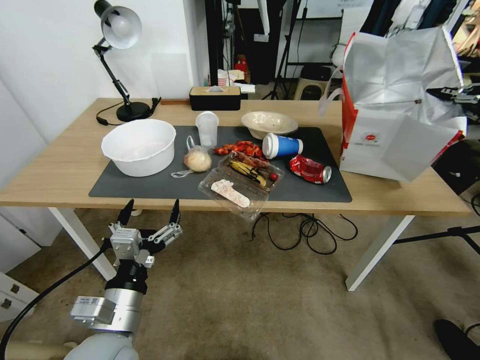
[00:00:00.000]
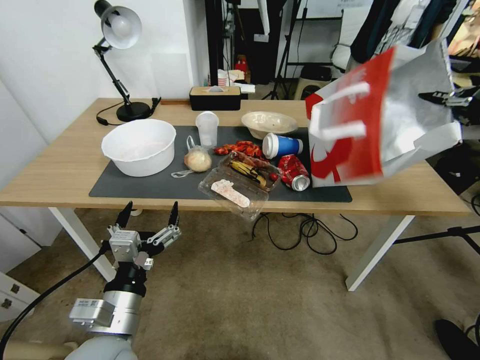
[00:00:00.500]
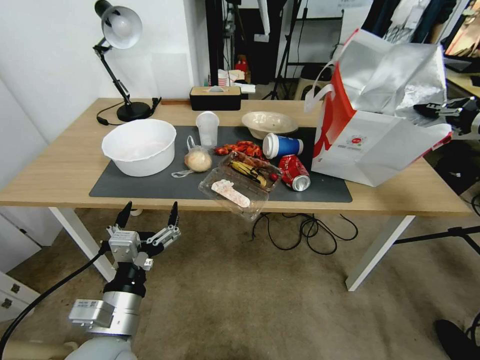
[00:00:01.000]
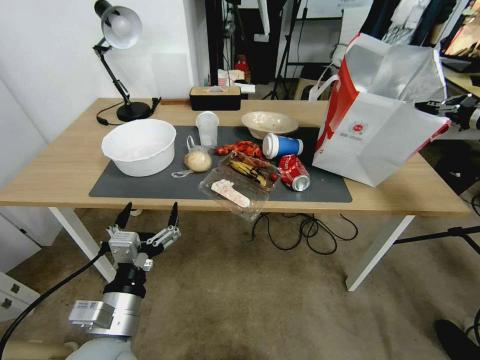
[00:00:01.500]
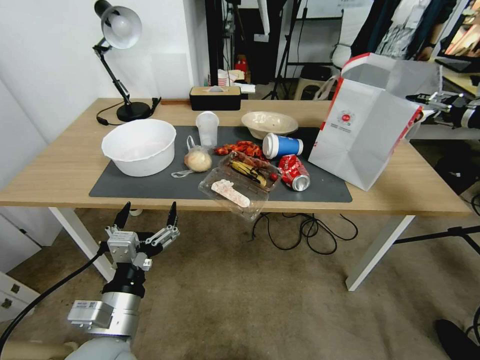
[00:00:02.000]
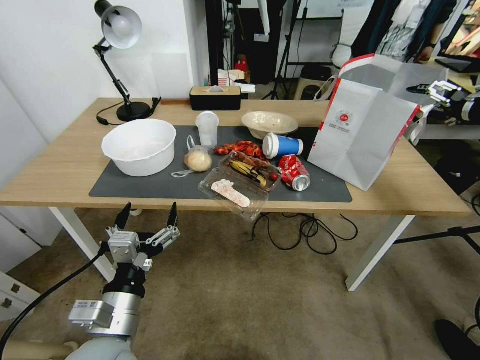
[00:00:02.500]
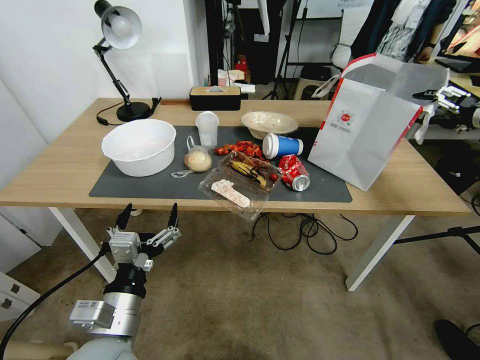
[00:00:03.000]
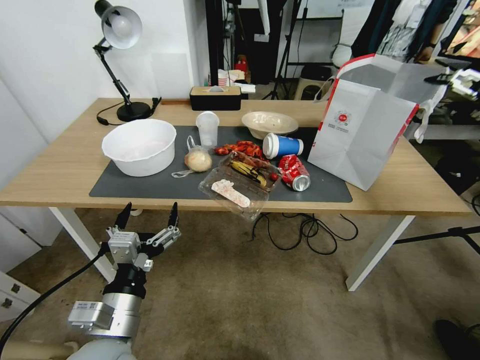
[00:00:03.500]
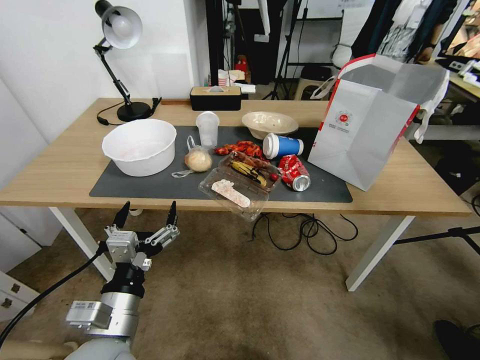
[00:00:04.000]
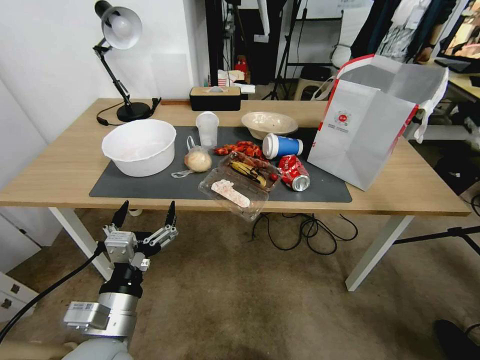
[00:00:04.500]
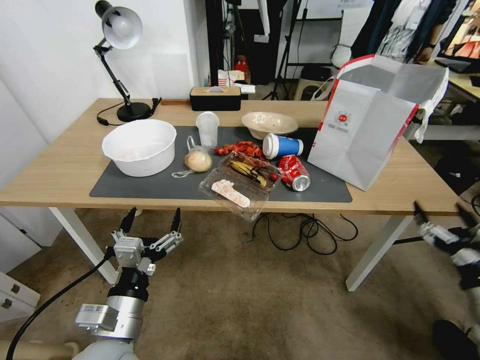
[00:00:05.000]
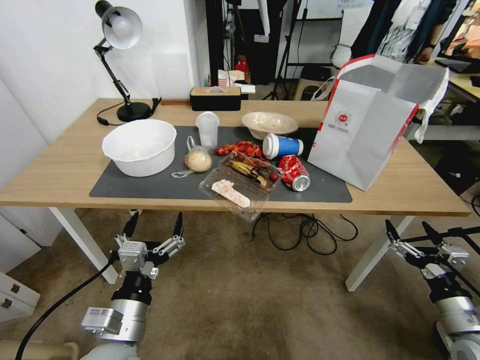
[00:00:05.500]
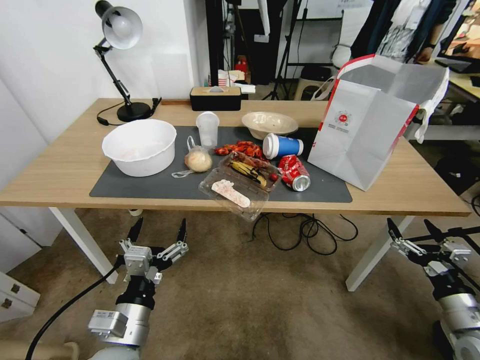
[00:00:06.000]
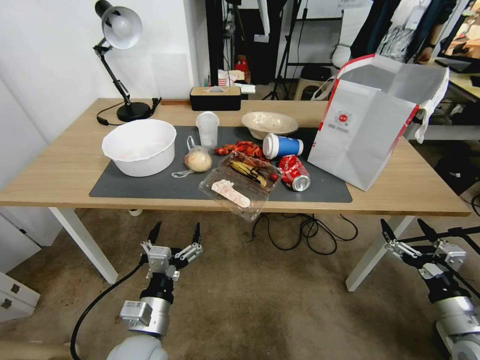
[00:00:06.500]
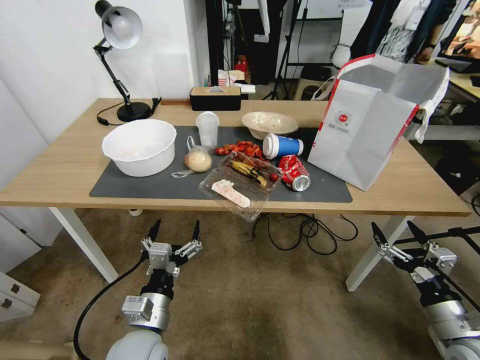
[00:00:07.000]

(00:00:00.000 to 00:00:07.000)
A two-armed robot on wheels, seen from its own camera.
Task of the whole recording: Pick up the food delivery bag from the floor and place it on the table.
00:00:00.000 - 00:00:02.000: The right gripper shifts by approximately 5 cm, and opens its fingers.
00:00:02.000 - 00:00:03.500: The right gripper travels upward and backward by roughly 10 cm, and opens up.
00:00:03.500 - 00:00:05.000: The right gripper is displaced downward and backward by approximately 40 cm.
00:00:05.000 - 00:00:07.000: The right gripper changes place by about 5 cm. Meanwhile the left gripper heads downward, covering approximately 5 cm.

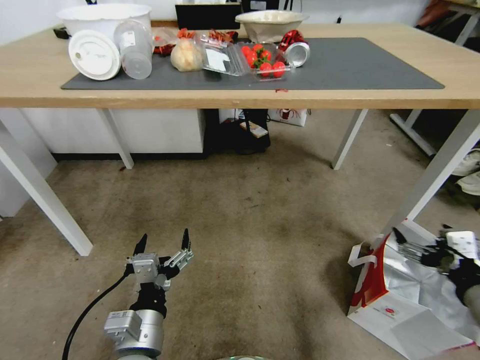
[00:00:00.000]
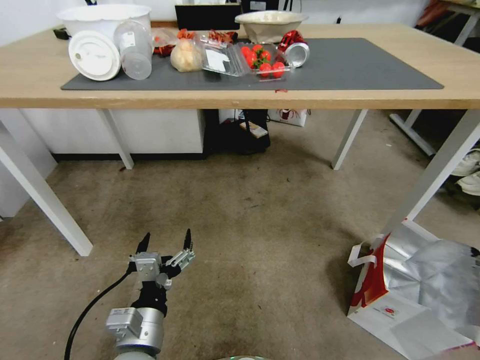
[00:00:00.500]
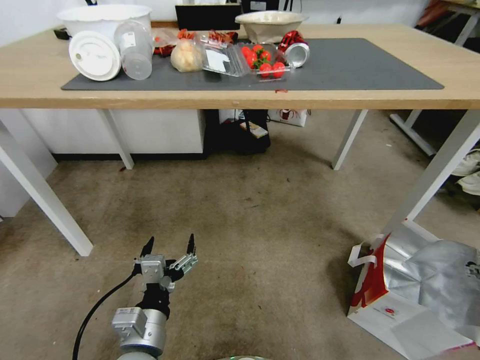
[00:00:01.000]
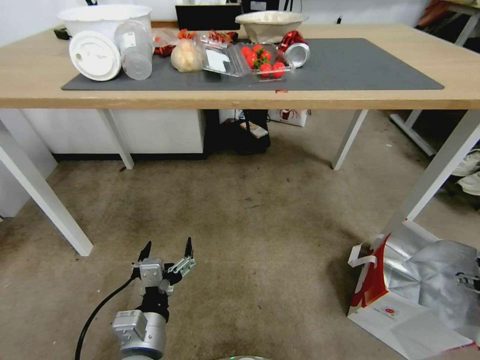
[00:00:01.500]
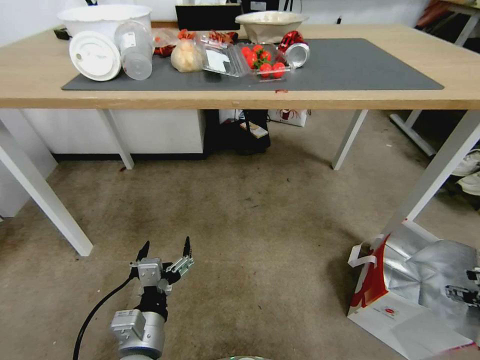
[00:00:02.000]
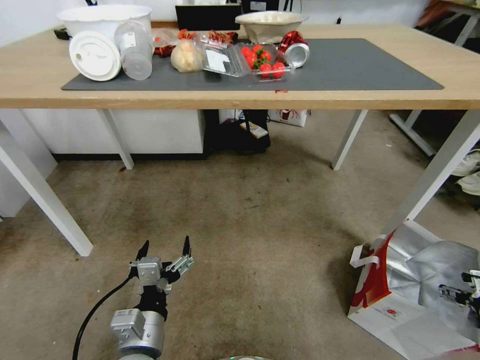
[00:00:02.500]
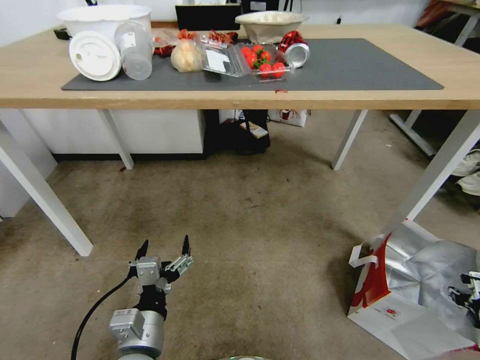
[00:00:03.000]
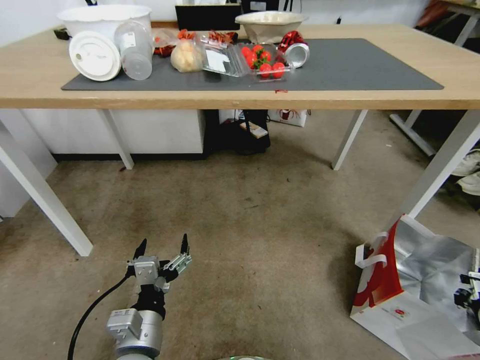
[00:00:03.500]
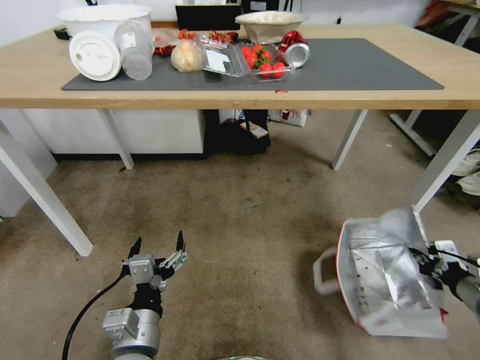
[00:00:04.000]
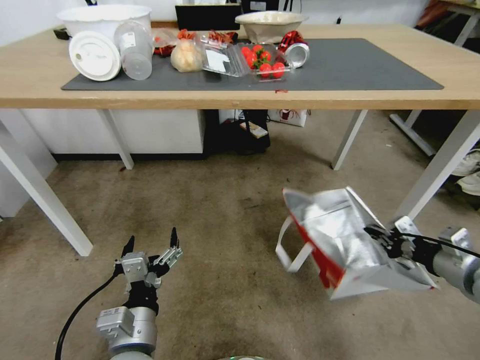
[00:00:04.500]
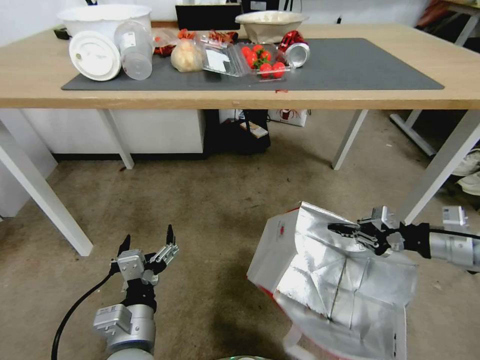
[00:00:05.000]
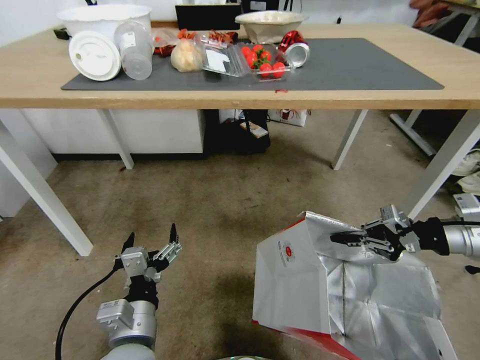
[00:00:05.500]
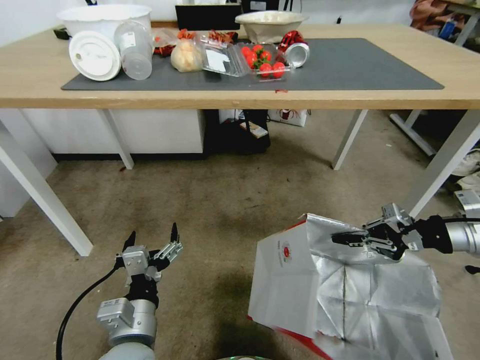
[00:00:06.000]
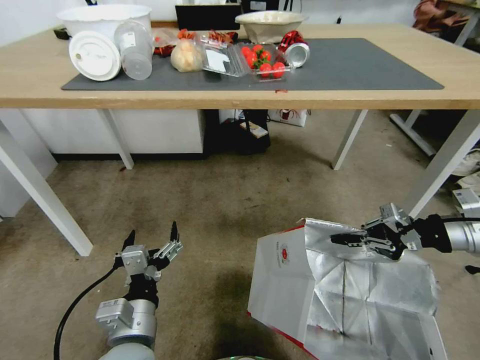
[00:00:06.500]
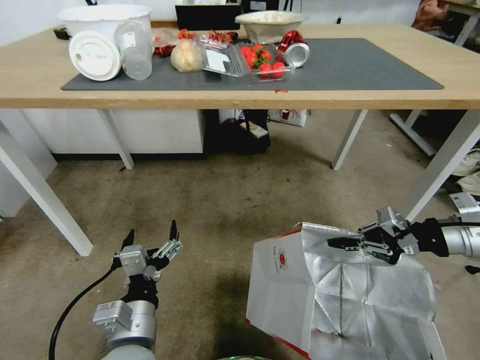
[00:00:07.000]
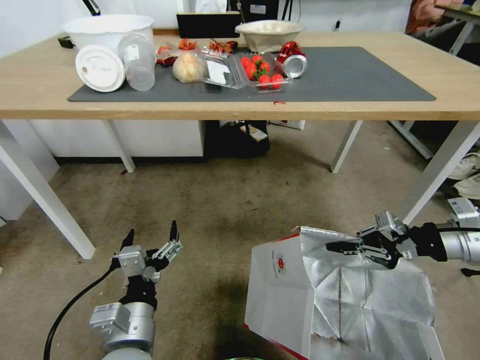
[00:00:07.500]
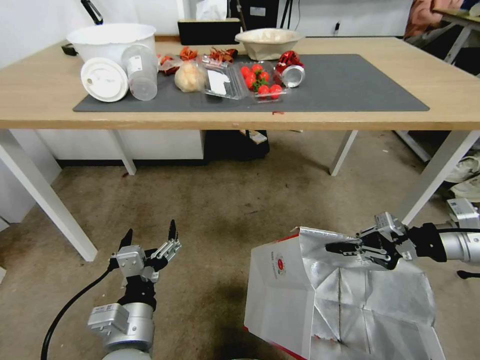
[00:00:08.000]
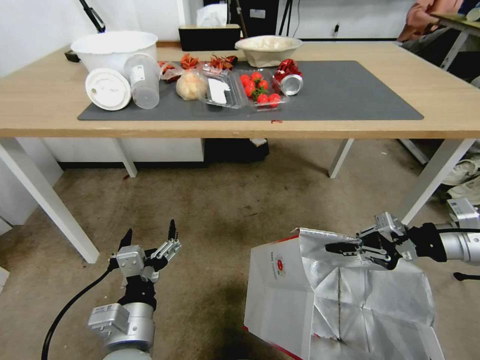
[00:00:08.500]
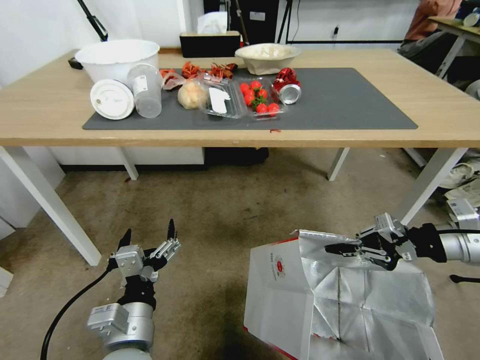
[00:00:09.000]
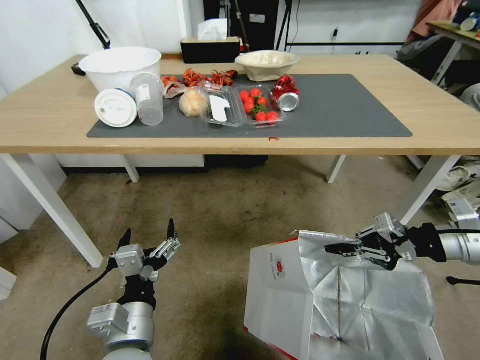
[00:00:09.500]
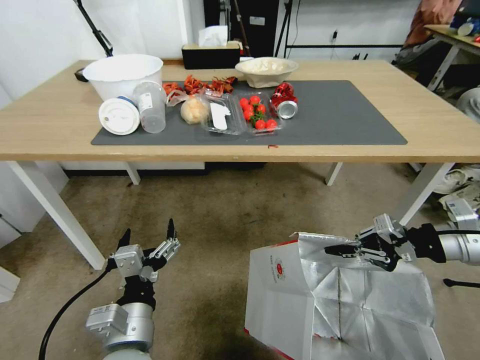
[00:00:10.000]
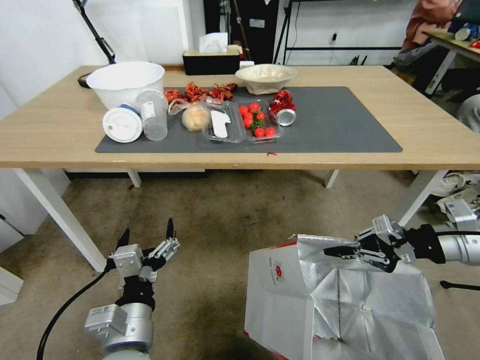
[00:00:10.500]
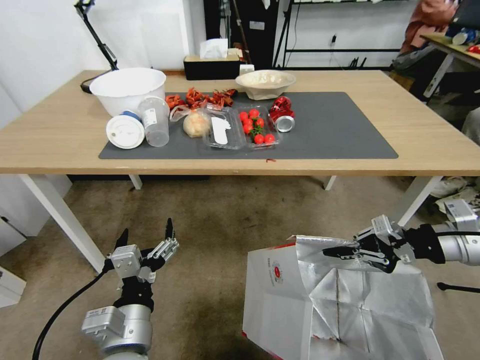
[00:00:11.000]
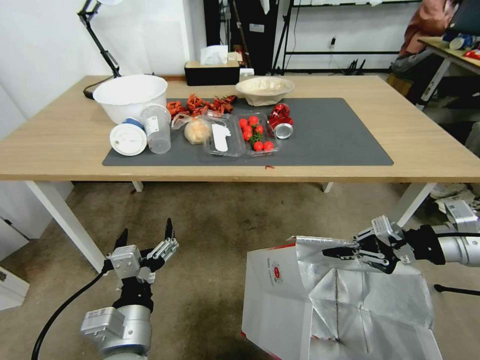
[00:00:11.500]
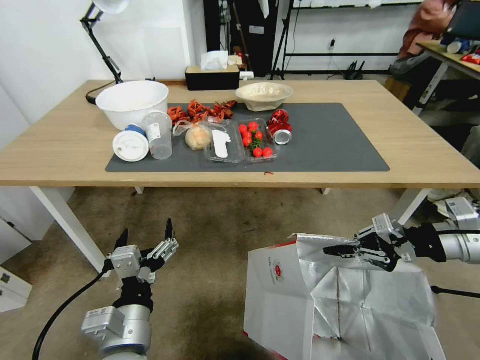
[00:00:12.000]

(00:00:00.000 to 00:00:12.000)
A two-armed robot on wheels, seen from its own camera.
Task of the whole recording: Pick up the food delivery bag from the floor and place it on the table.
00:00:00.000 - 00:00:02.000: The right gripper goes roughly 20 cm to the right, downward and forward.
00:00:02.000 - 00:00:04.000: The right gripper closes.
00:00:04.000 - 00:00:06.000: The right gripper moves upward and forward, approximately 15 cm.

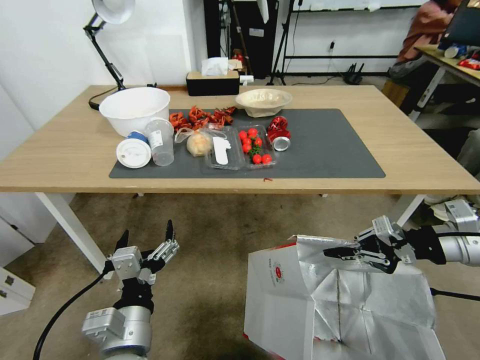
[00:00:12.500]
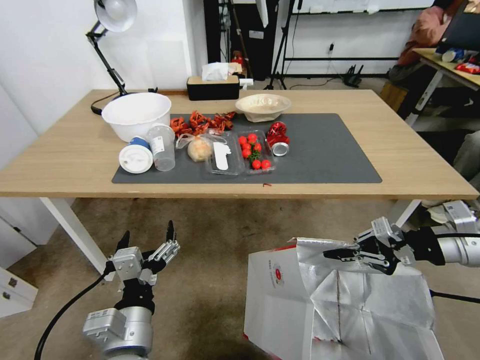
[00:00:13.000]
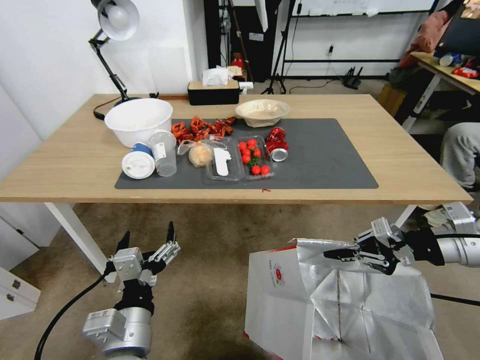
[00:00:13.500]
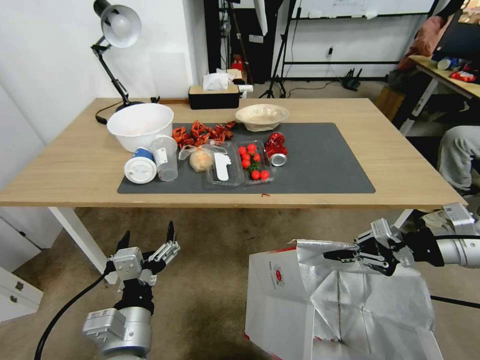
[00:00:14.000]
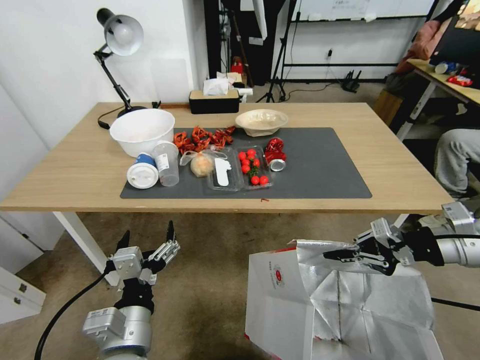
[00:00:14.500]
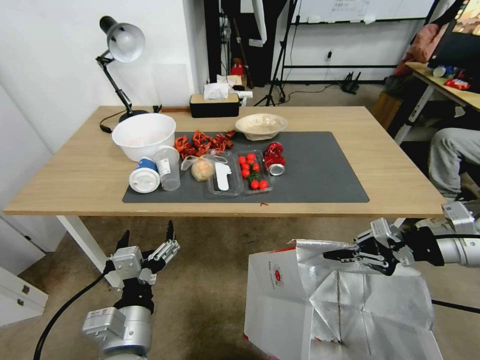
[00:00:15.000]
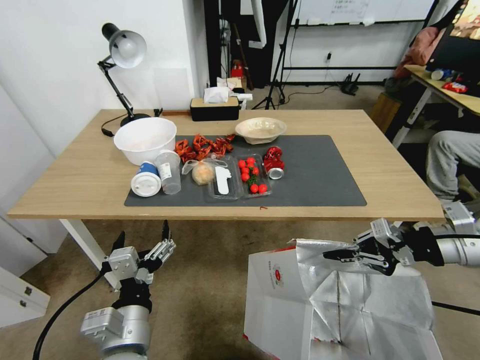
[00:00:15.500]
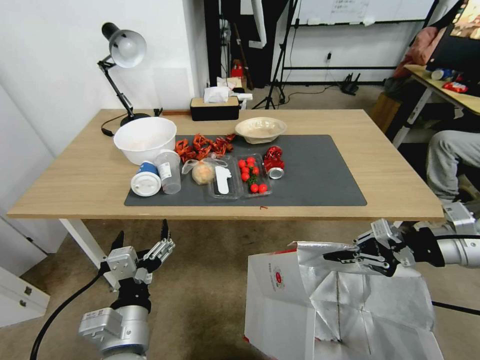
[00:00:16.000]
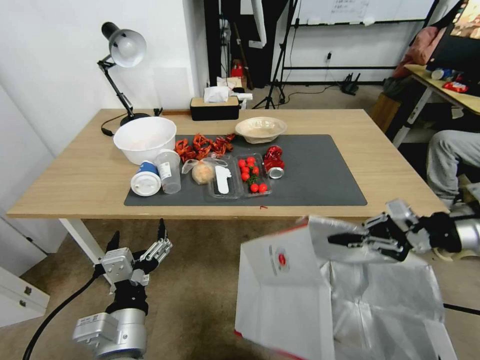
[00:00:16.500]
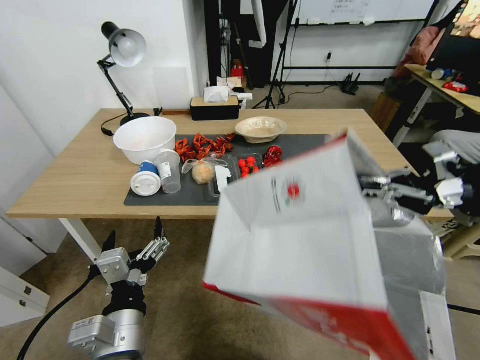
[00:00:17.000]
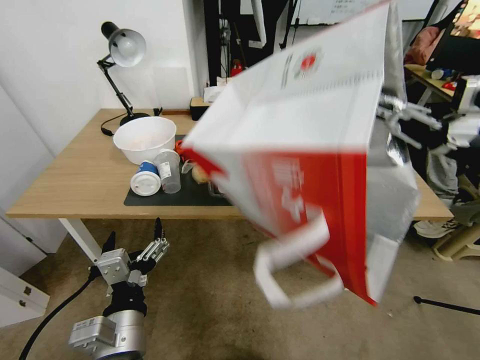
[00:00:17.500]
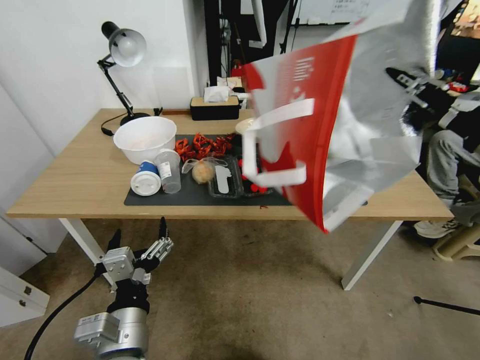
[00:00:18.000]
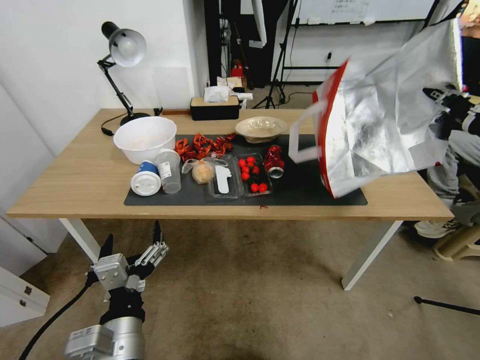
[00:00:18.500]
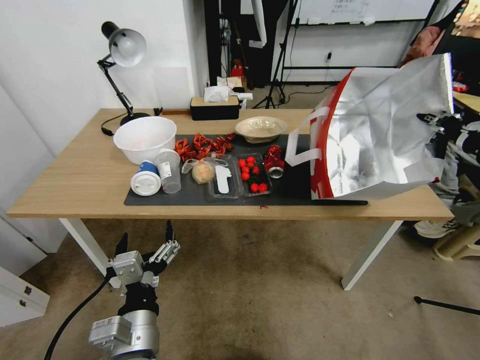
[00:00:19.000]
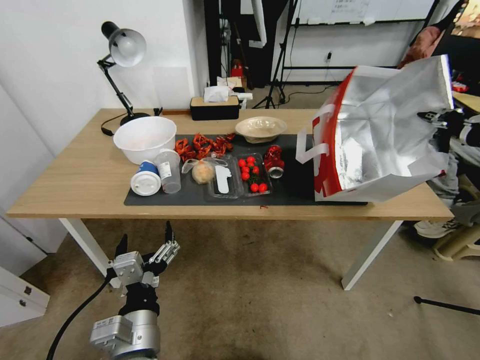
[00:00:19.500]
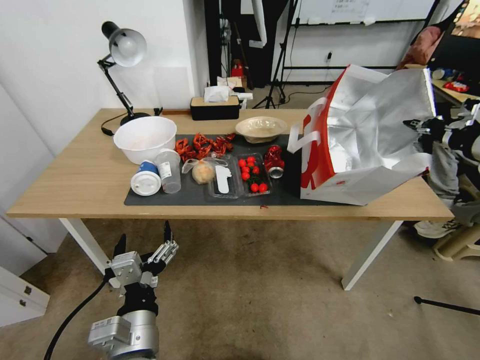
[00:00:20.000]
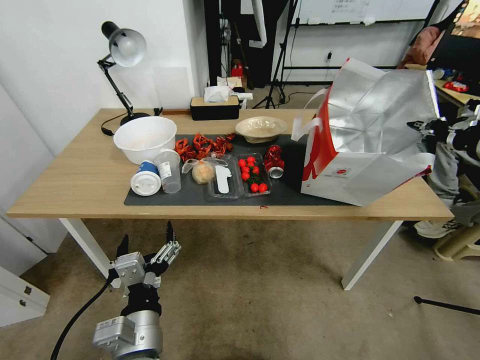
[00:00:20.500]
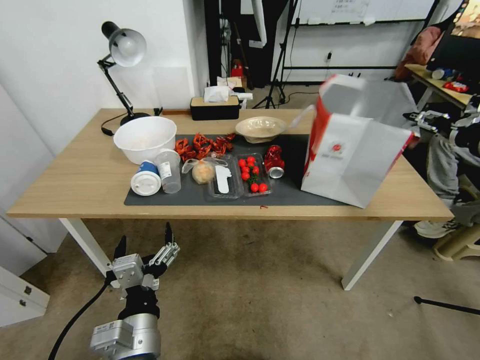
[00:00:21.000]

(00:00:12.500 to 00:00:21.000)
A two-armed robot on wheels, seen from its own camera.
Task of the whole recording: Pick up the food delivery bag from the floor and place it on the table.
00:00:16.500 - 00:00:19.000: The right gripper heads upward, covering some 10 cm.
00:00:19.000 - 00:00:21.000: The right gripper moves forward, some 5 cm, and opens.
